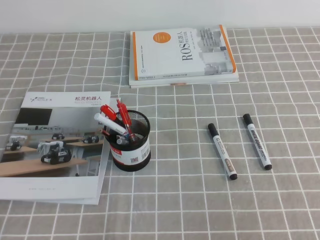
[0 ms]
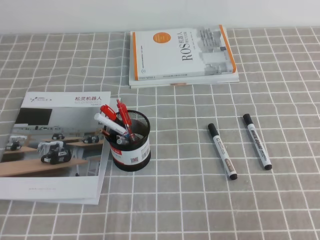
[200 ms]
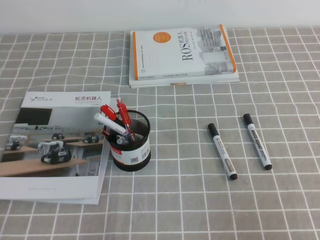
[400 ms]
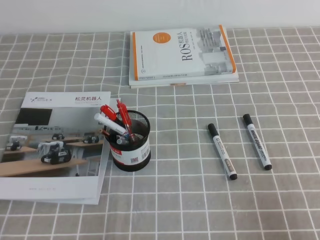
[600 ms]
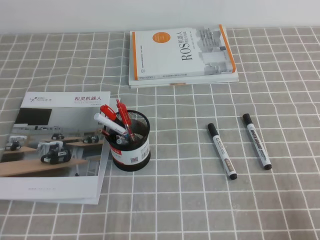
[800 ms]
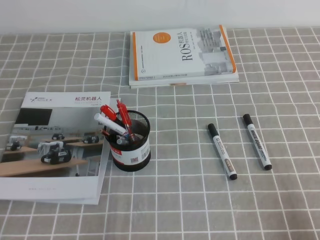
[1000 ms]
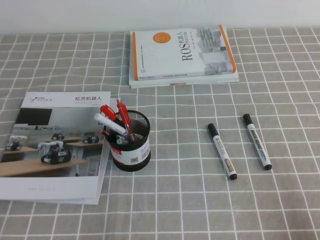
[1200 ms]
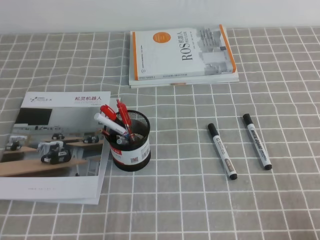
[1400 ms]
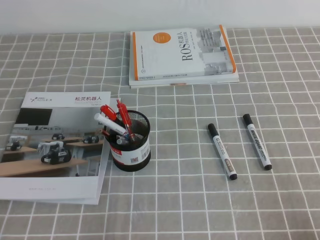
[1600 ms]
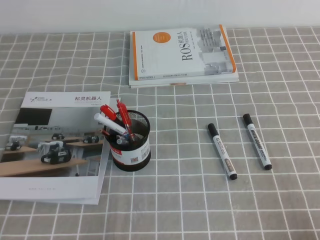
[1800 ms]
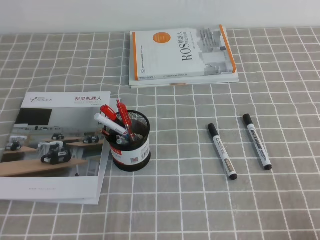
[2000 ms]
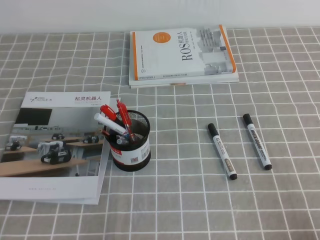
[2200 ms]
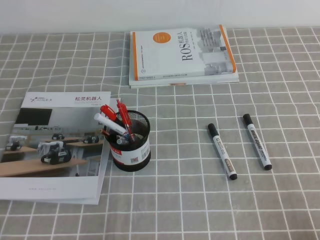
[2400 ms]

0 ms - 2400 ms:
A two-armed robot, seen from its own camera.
0 ms - 1200 ms: The right gripper heads downward, covering some 15 cm.
